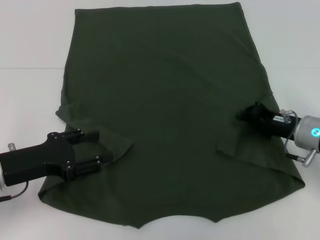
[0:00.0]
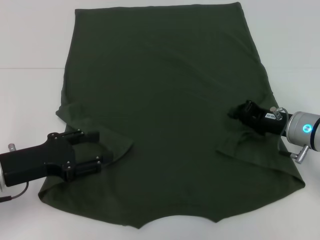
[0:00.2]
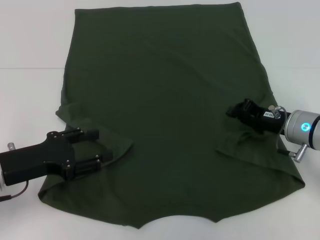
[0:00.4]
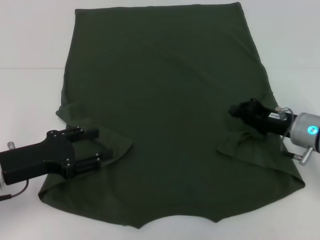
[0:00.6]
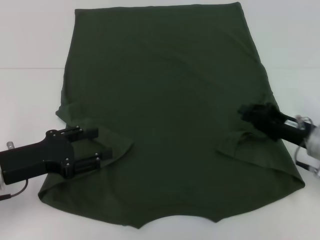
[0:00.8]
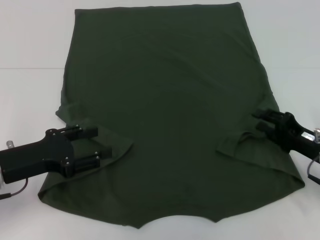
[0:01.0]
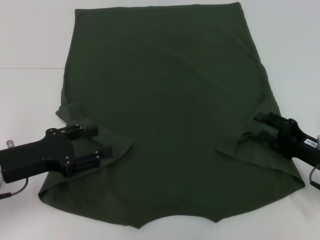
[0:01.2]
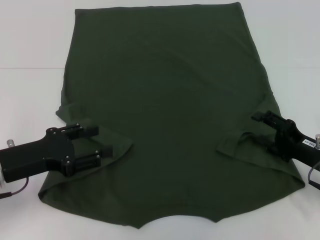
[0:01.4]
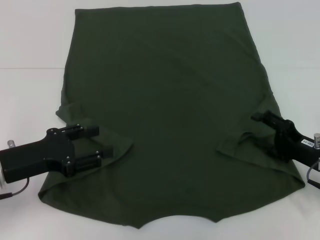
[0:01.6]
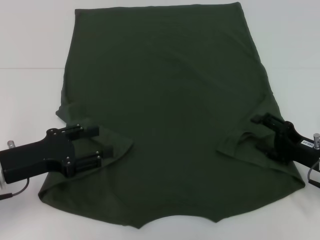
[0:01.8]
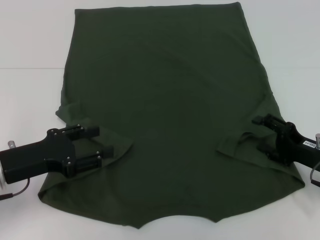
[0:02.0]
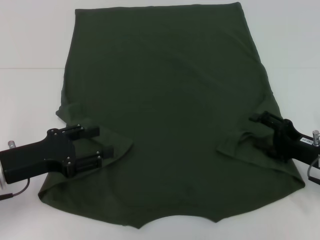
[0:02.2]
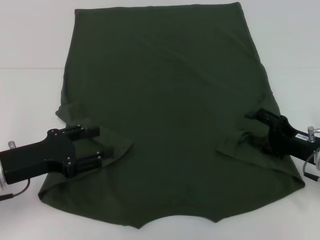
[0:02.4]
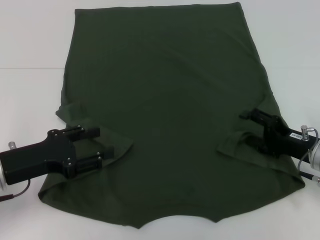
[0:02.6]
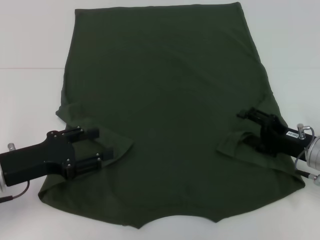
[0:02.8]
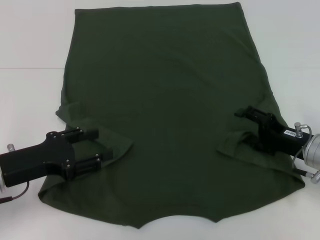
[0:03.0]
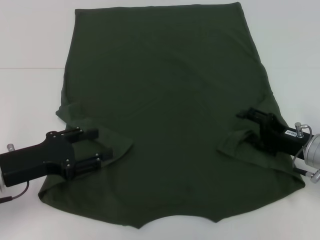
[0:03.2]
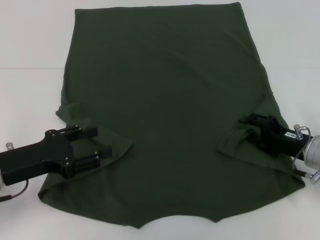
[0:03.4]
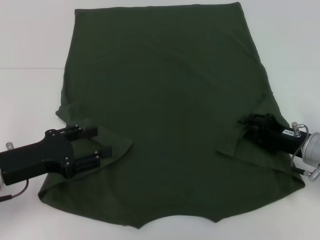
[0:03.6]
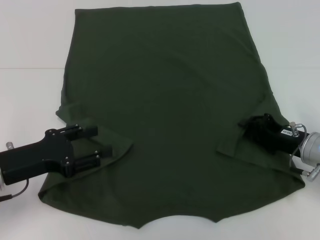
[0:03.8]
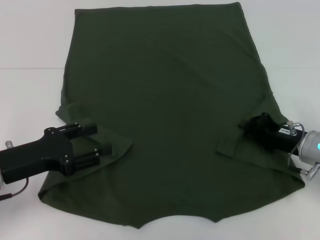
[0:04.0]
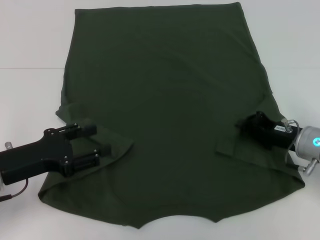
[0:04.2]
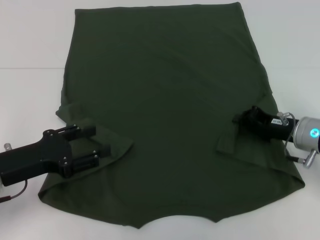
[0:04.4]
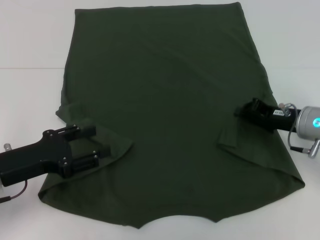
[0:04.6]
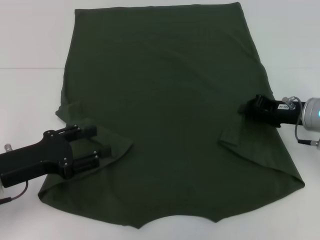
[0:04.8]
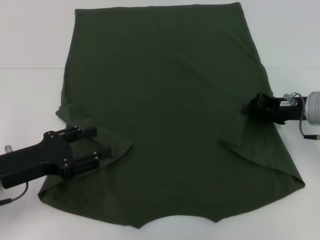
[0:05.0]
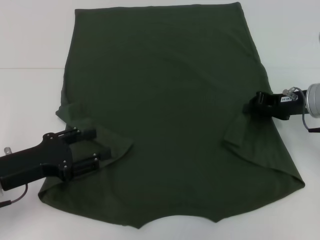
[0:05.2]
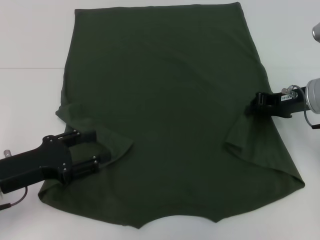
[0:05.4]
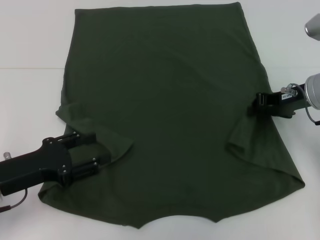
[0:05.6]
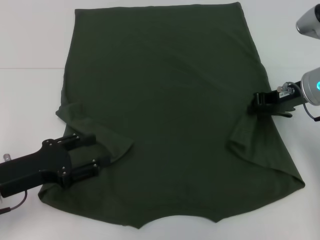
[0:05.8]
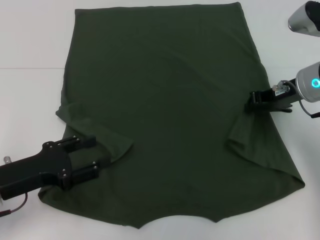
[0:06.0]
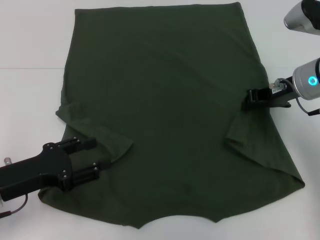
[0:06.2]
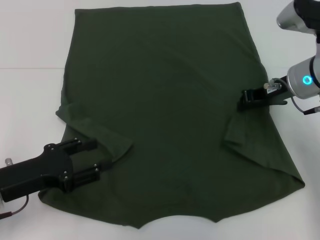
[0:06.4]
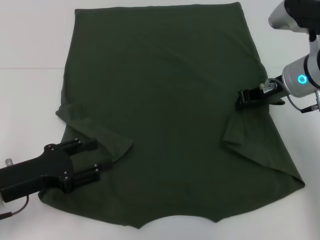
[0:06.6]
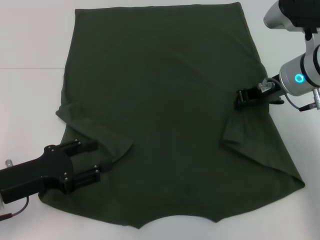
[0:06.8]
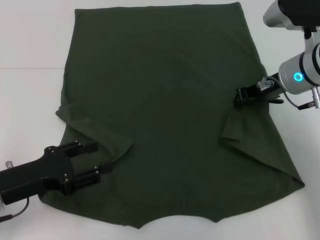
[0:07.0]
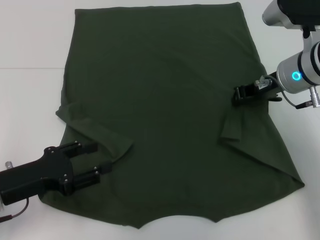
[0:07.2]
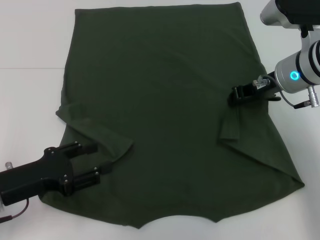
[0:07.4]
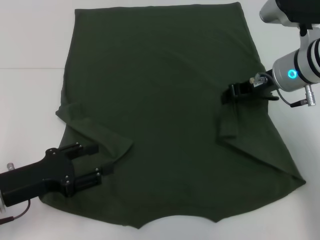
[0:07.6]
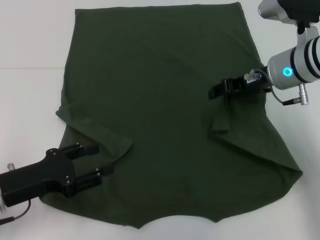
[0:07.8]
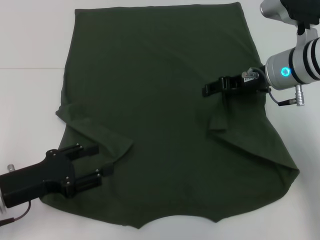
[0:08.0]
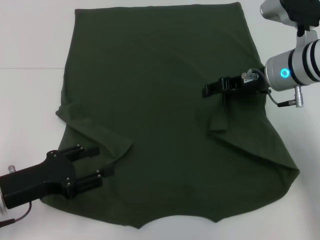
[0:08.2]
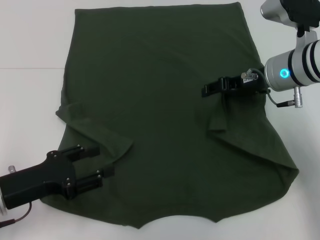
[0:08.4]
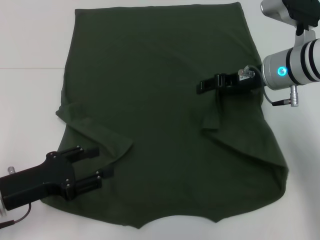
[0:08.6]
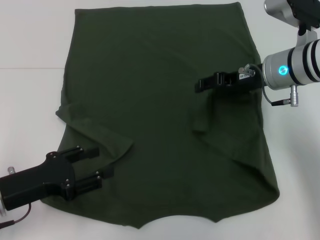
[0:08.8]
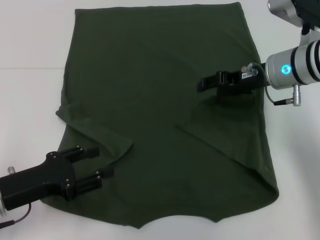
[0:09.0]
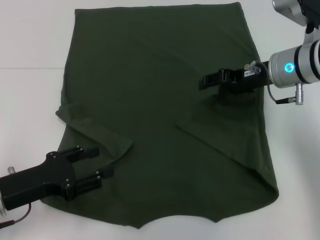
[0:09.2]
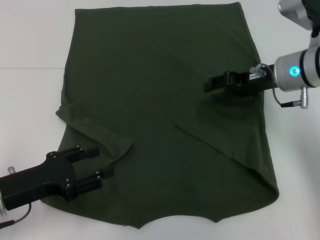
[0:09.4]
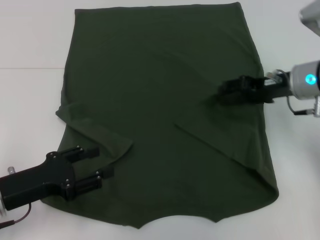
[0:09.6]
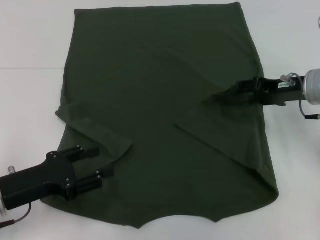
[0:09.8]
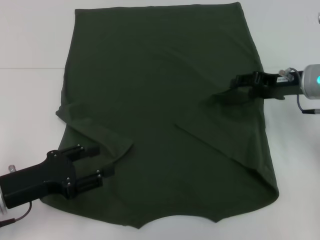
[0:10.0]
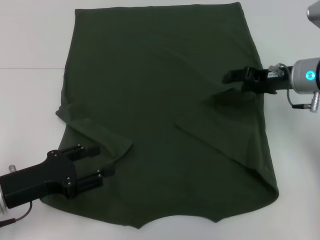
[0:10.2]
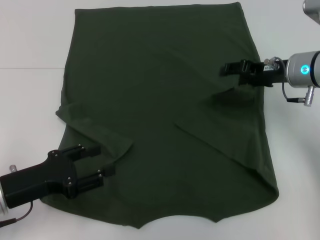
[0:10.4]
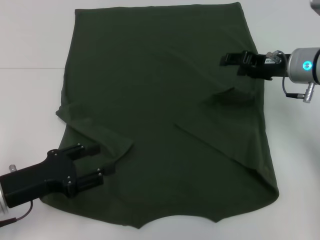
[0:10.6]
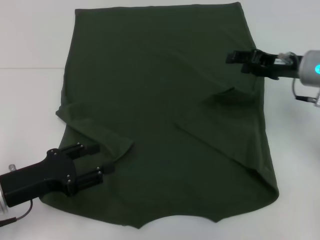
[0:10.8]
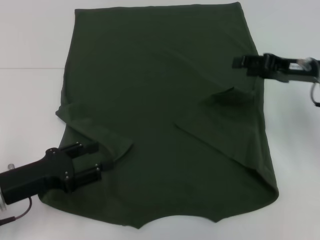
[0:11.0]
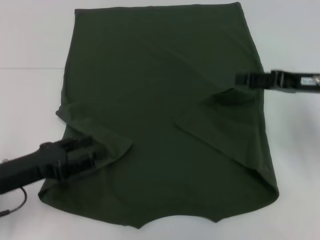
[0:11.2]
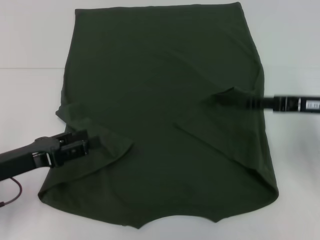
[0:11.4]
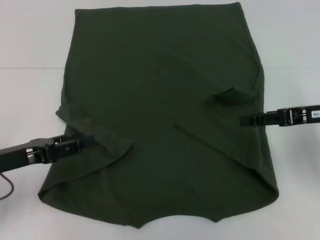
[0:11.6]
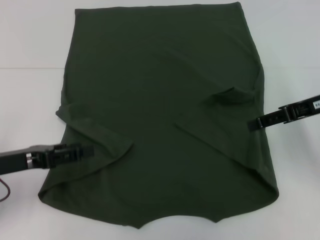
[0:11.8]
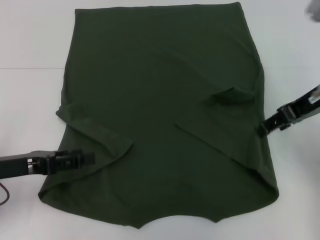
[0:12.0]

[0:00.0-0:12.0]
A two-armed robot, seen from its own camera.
Step, 0:00.0 to 0:11.6: Fold the bottom right sleeve with your right hand.
0:00.0 to 0:01.6: The right gripper heads backward, covering approximately 5 cm, and opens its fingers.
0:01.6 to 0:03.0: There are only small adjustments of the grippers.
0:03.0 to 0:04.4: The right gripper closes its fingers.
0:04.4 to 0:06.0: The right gripper heads upward and forward, covering some 10 cm.
0:06.0 to 0:07.6: There are only small adjustments of the grippers.
0:07.6 to 0:09.0: The right gripper opens its fingers.
0:10.4 to 0:12.0: The left gripper changes place by approximately 5 cm, while the right gripper heads upward and backward, covering roughly 10 cm.

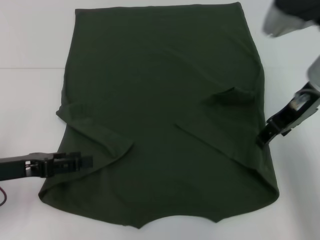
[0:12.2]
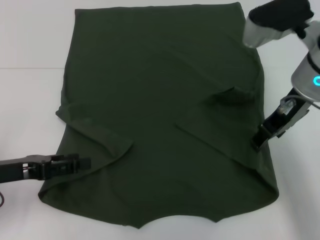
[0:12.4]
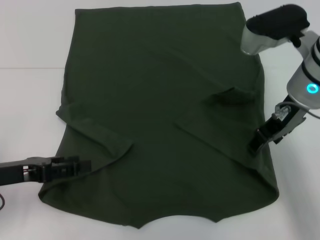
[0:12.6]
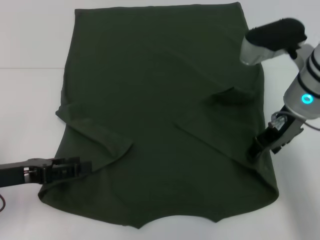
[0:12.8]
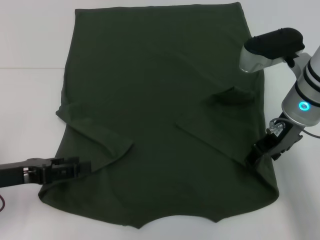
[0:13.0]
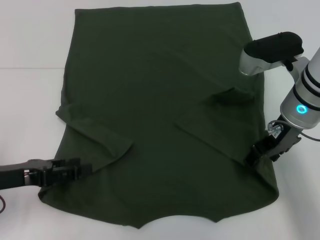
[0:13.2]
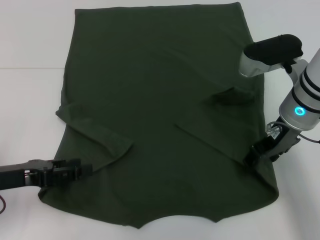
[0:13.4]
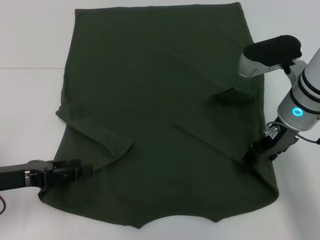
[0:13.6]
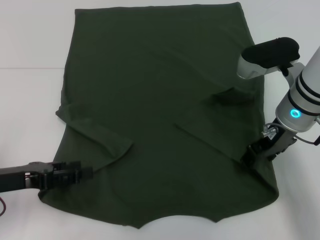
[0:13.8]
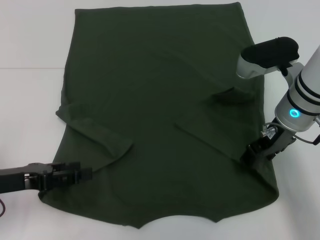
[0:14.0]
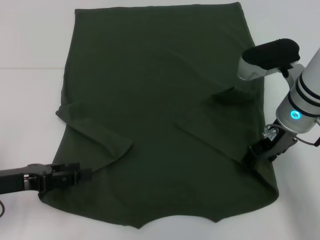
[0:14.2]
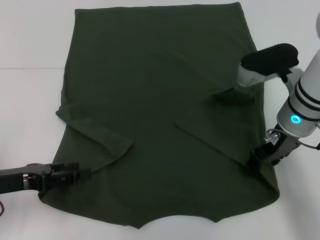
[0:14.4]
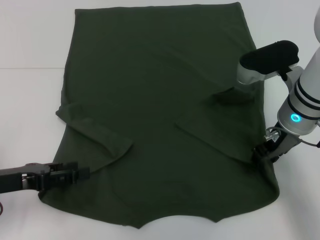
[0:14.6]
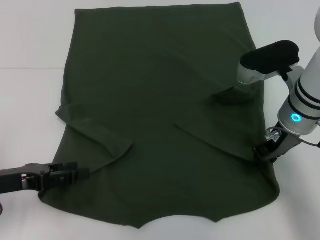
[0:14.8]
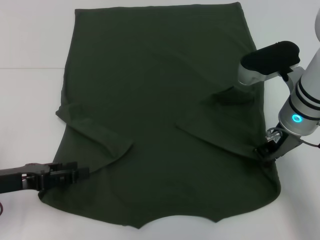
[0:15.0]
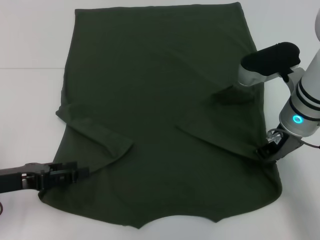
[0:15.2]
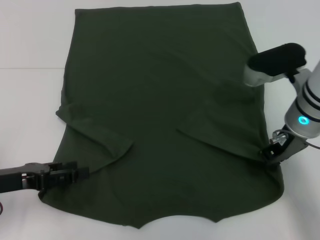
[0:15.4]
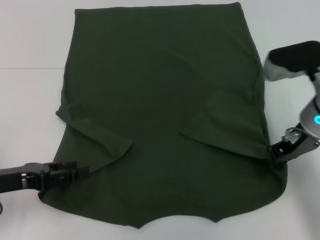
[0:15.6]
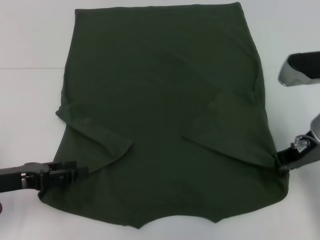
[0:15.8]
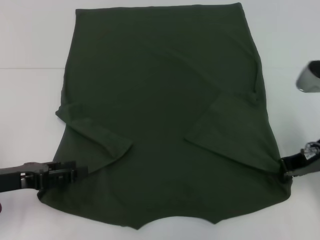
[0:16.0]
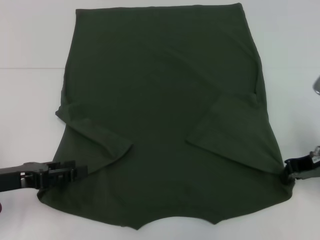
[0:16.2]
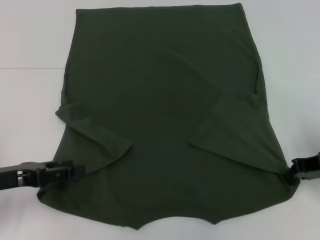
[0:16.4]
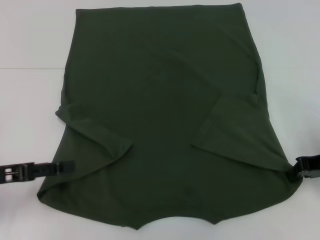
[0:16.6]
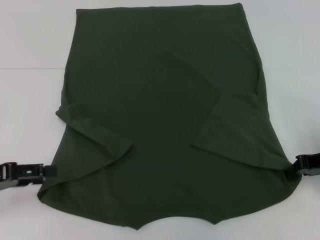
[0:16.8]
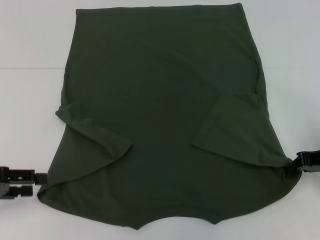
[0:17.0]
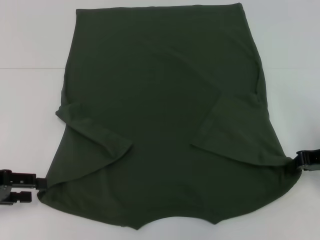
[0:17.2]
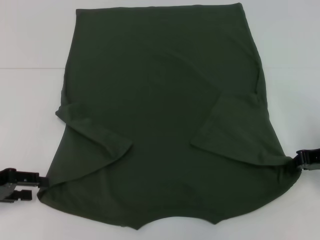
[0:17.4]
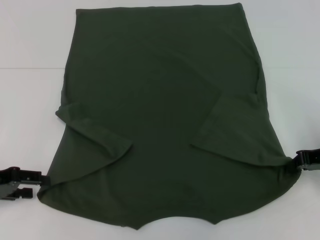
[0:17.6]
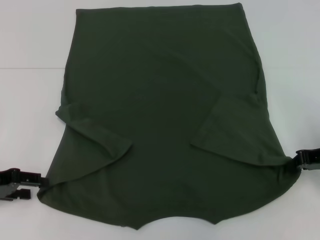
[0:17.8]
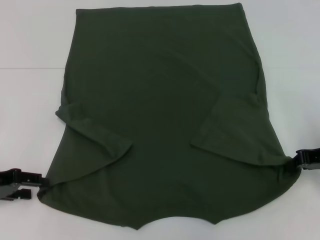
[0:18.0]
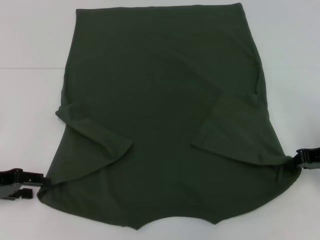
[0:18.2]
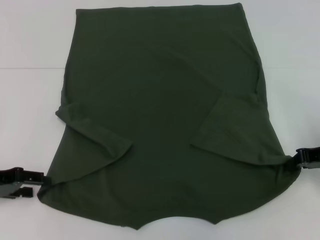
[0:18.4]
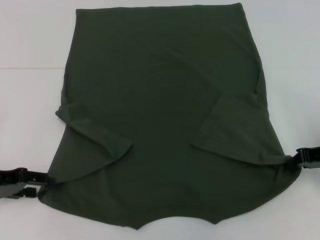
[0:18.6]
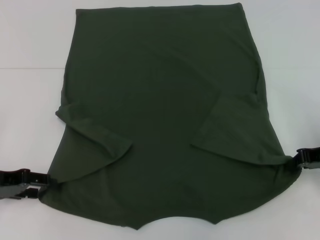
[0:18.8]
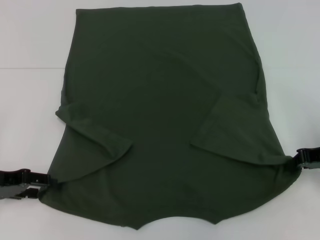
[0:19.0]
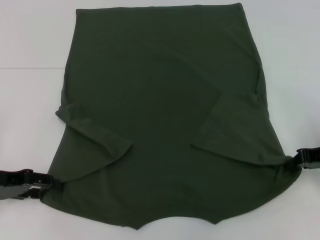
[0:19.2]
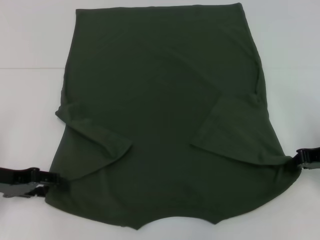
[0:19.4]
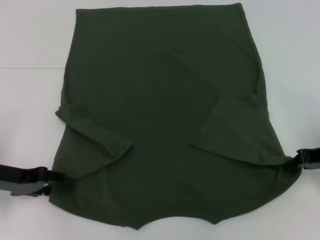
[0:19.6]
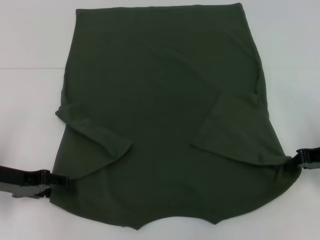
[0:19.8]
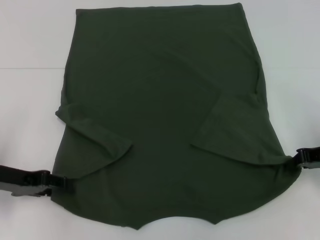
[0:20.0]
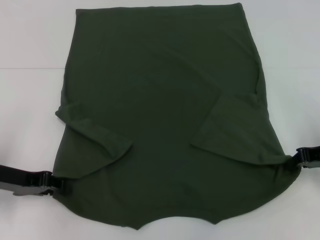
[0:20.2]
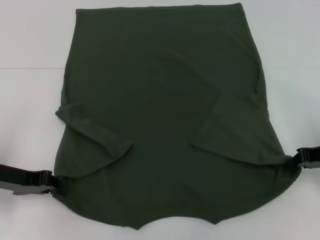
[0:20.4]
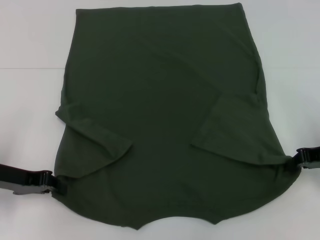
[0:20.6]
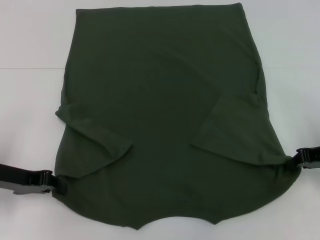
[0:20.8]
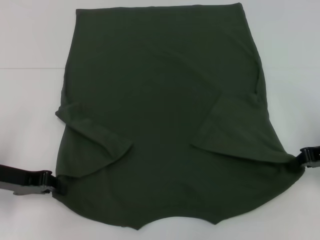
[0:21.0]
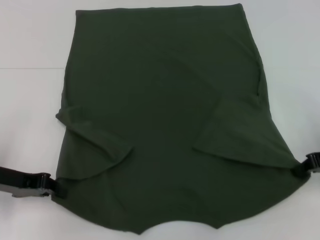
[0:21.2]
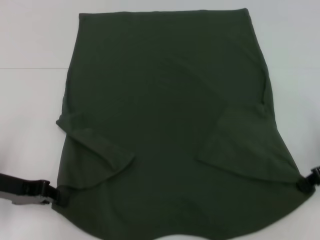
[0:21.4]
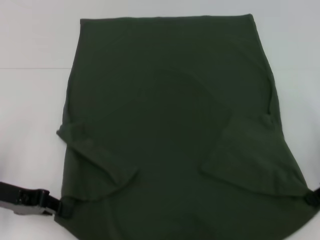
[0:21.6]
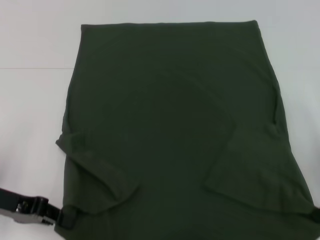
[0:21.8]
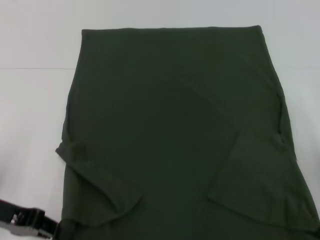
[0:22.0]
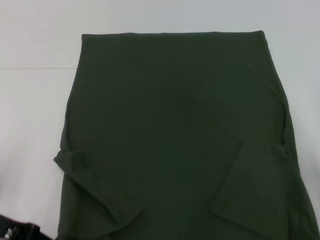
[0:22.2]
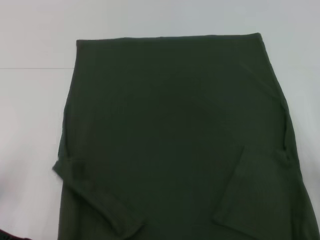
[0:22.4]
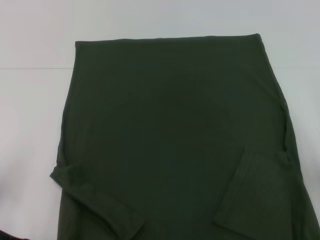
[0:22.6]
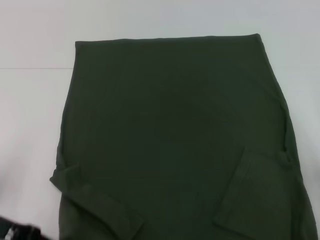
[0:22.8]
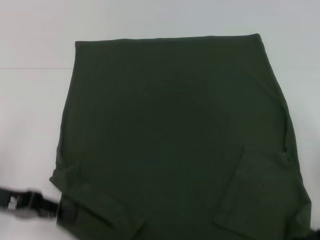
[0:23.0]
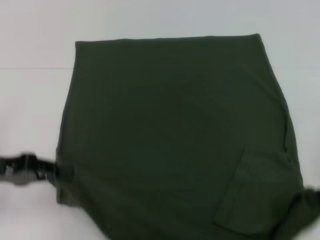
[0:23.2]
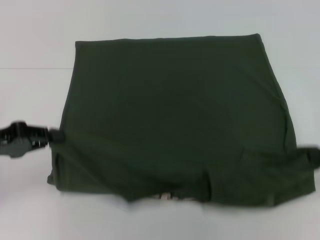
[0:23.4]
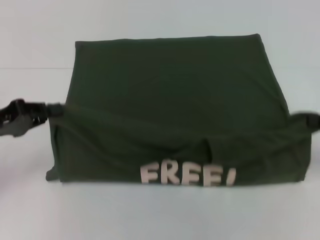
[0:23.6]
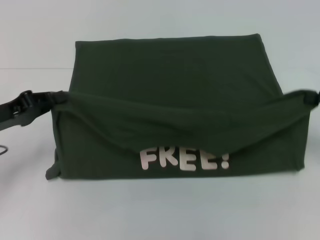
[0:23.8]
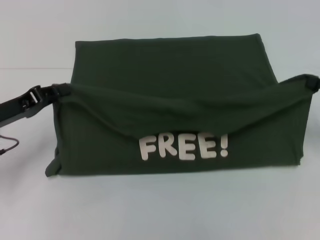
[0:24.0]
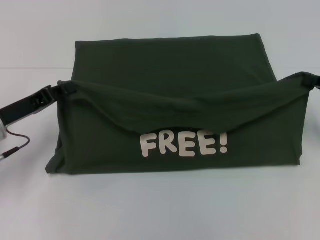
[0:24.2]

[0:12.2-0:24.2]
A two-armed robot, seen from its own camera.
Step, 0:12.2 to 0:16.2: Grab the bottom right corner with your right hand.
Step, 0:16.4 to 0:20.8: Grab the bottom left corner with your left hand.
0:12.2 to 0:13.8: The right gripper heads downward, covering approximately 10 cm.
0:13.8 to 0:15.2: The right gripper closes up.
0:15.2 to 0:16.6: The right gripper heads to the right and backward, covering roughly 15 cm.
0:18.2 to 0:19.8: The grippers stay close to where they were, moving slightly.
0:19.8 to 0:21.2: The left gripper closes.
0:21.2 to 0:22.6: Both grippers travel together backward, some 5 cm.
0:22.6 to 0:24.2: The left gripper goes approximately 10 cm forward. Meanwhile the right gripper travels forward and to the right by some 10 cm.
